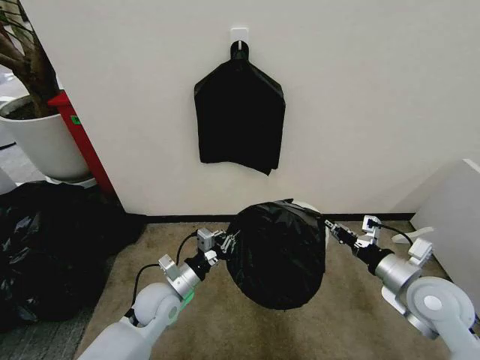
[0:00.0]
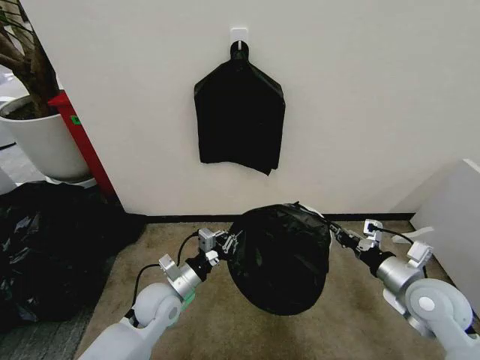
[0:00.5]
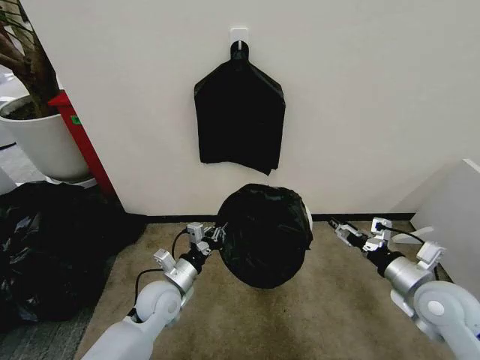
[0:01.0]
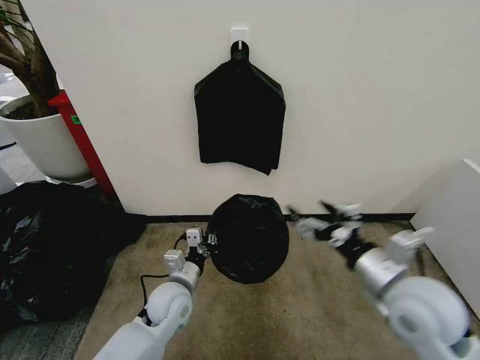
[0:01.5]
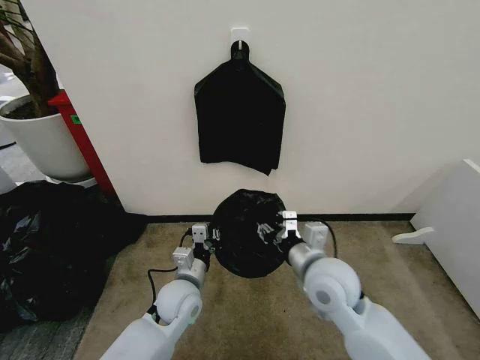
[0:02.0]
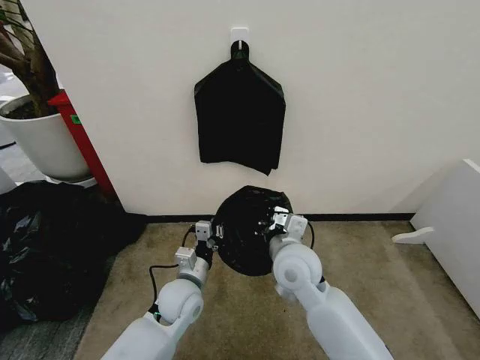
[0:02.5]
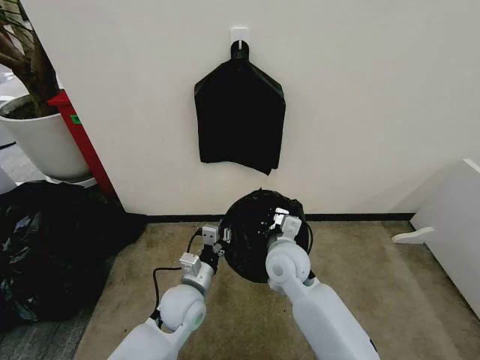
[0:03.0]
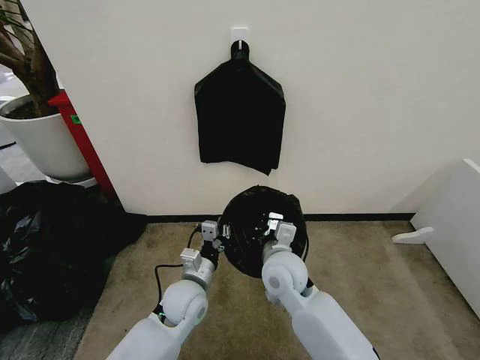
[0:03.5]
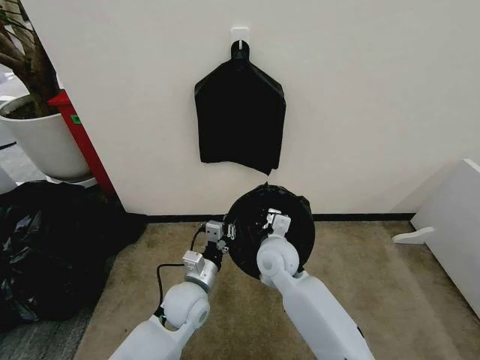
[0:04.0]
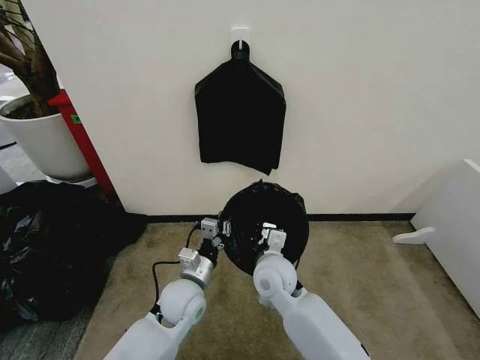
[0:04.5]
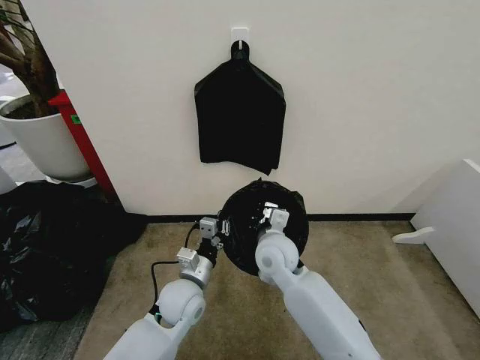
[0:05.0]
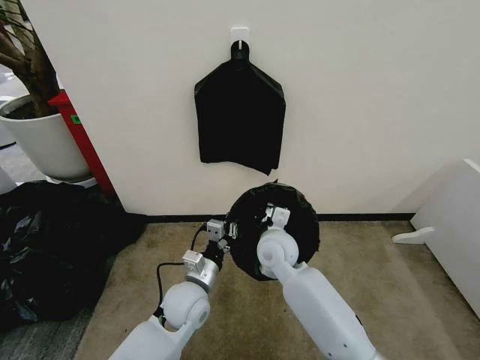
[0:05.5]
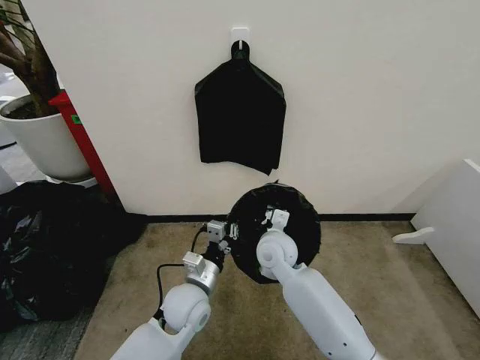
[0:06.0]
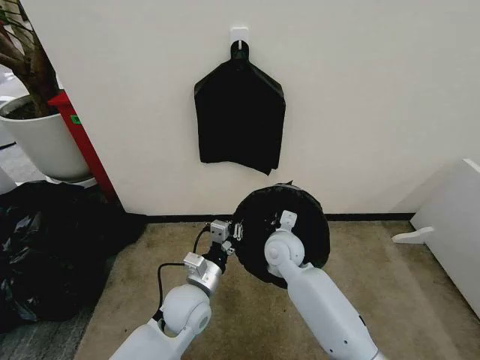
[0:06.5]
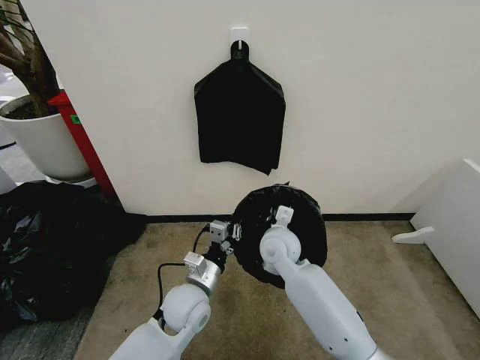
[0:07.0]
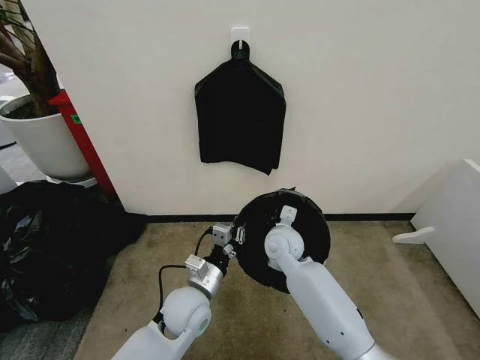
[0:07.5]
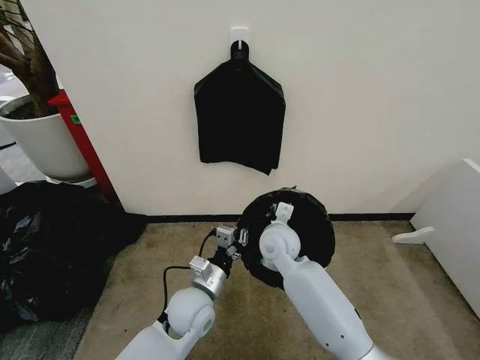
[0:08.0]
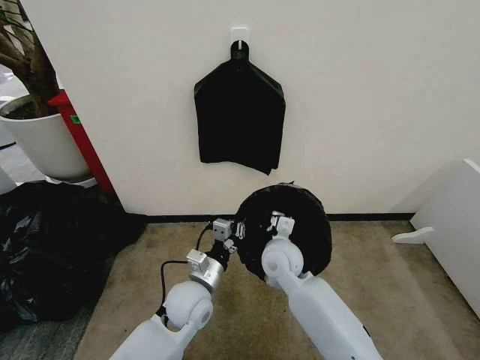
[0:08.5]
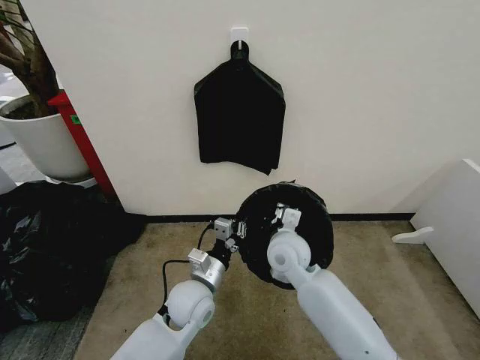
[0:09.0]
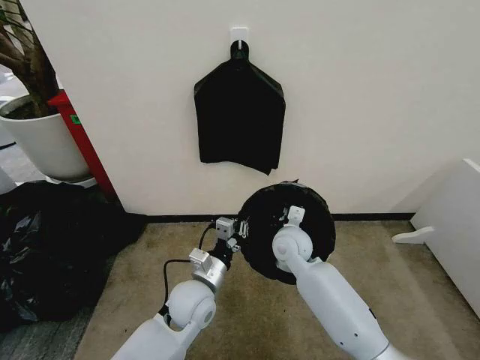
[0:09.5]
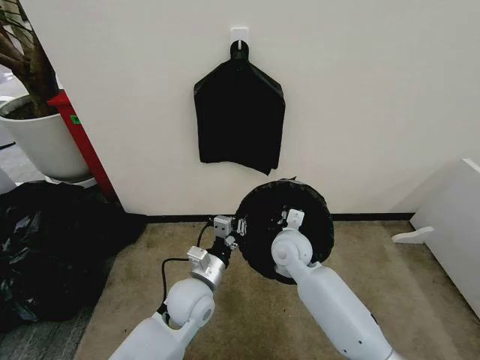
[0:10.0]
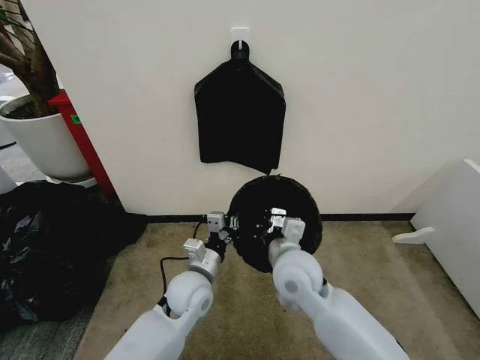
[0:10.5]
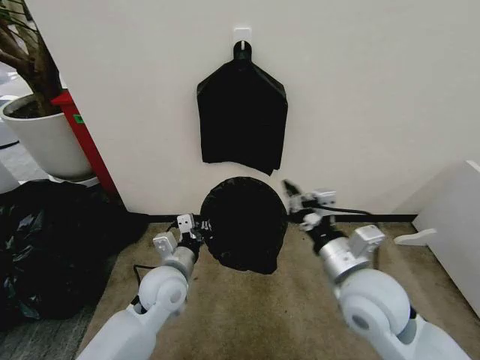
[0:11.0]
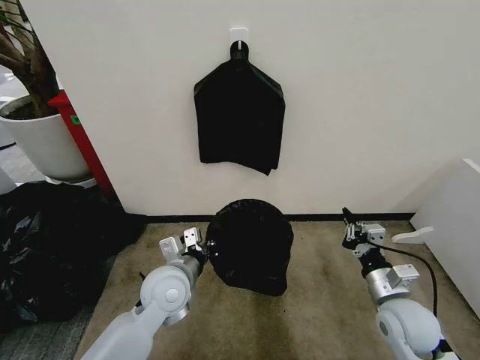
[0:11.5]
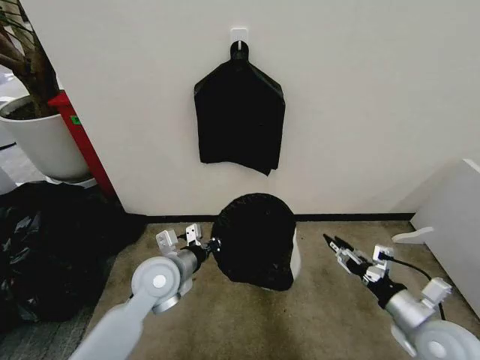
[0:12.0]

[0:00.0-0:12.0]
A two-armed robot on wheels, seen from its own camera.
Task of the whole recording: Place the garbage bag over the trash bin.
0:00.0 to 0:02.0: The right gripper goes about 20 cm to the left, and opens, then closes again, while the left gripper moves to the right, some 5 cm.
0:02.0 to 0:04.0: The right gripper shifts some 15 cm to the left, forward and downward, and closes its fingers.
0:04.0 to 0:06.0: The grippers stay close to where they were, moving slightly.
0:06.0 to 0:10.0: There are only small adjustments of the grippers.
0:10.0 to 0:12.0: The right gripper goes approximately 30 cm to the right and backward, and opens. The left gripper moves to the left and upward, about 10 cm.

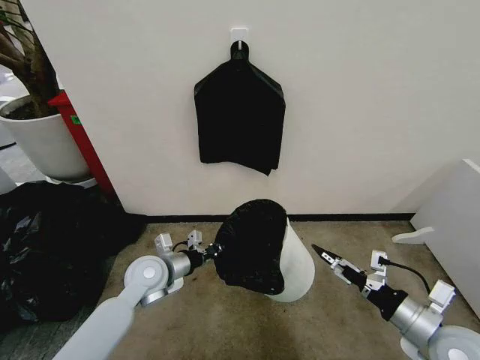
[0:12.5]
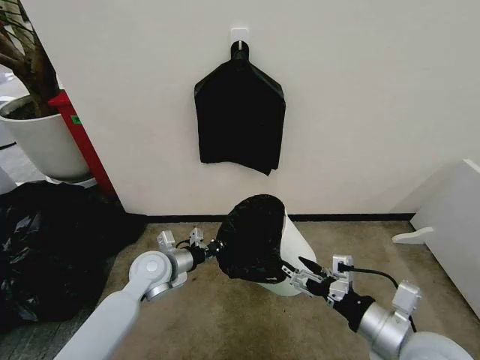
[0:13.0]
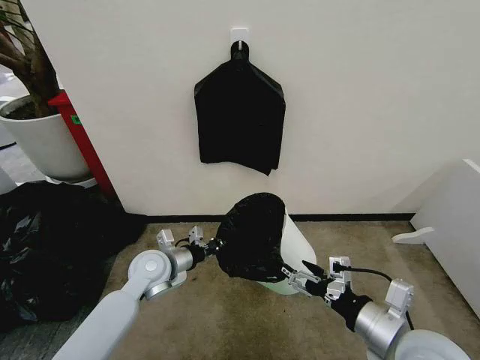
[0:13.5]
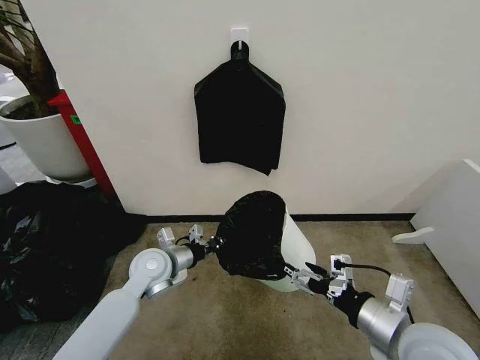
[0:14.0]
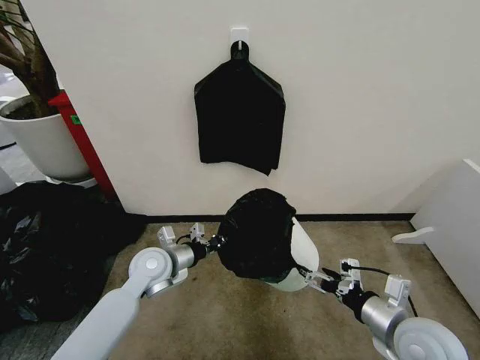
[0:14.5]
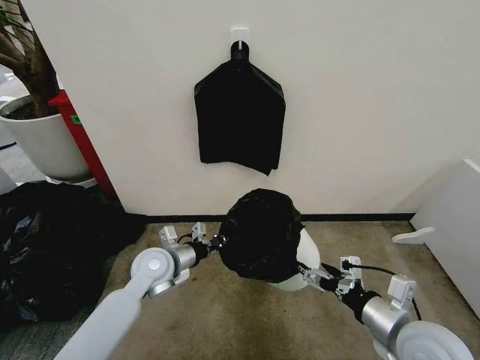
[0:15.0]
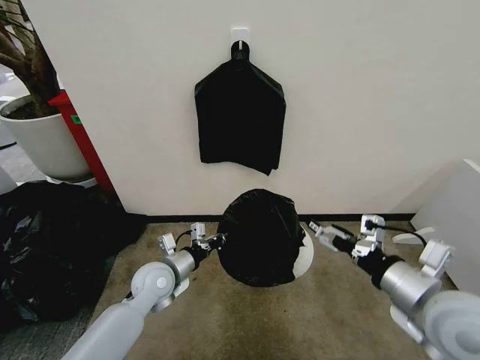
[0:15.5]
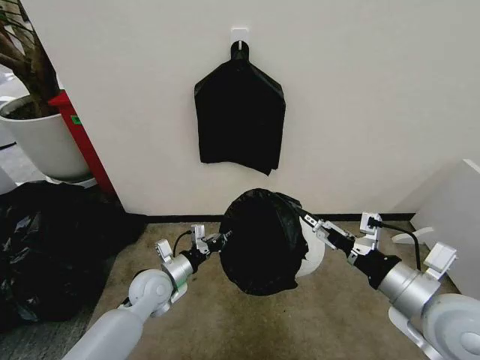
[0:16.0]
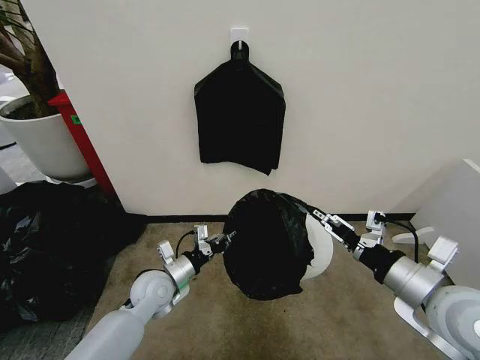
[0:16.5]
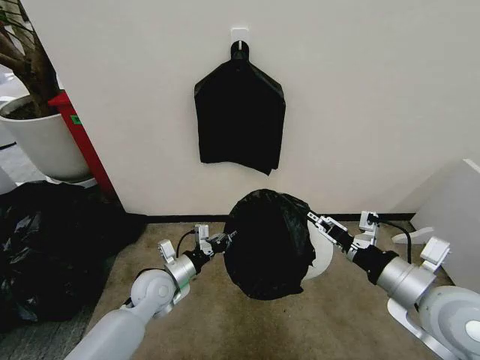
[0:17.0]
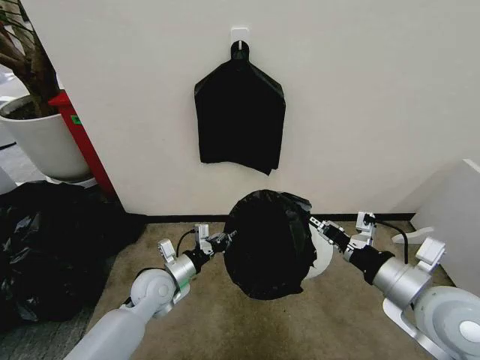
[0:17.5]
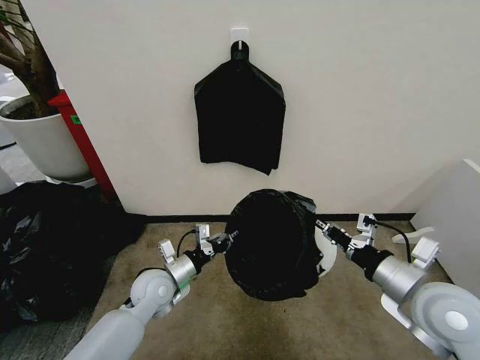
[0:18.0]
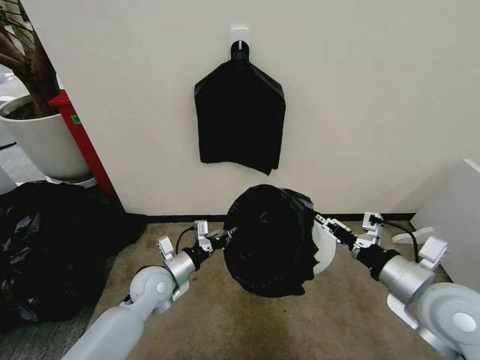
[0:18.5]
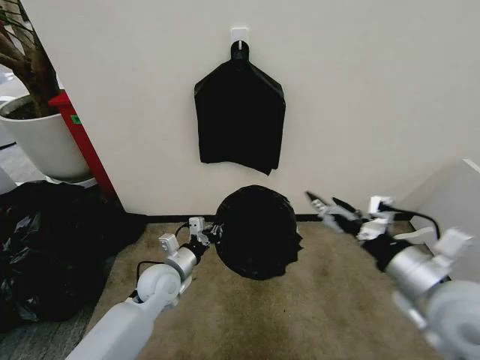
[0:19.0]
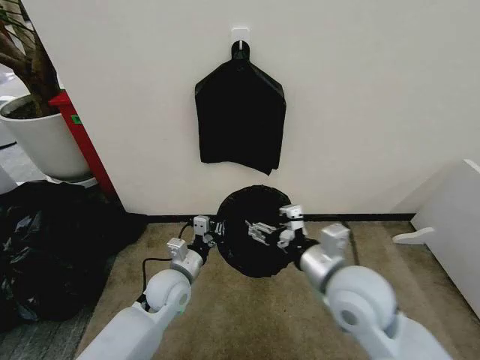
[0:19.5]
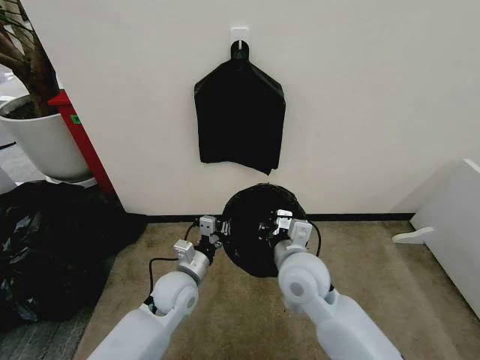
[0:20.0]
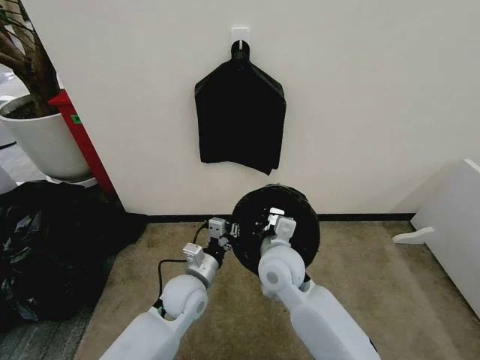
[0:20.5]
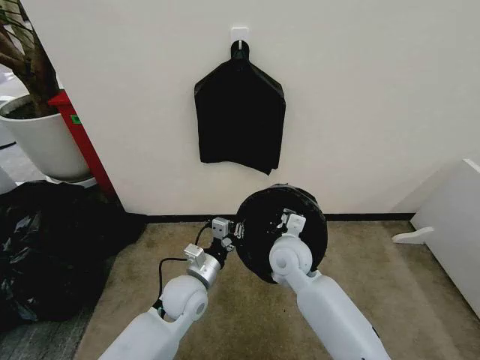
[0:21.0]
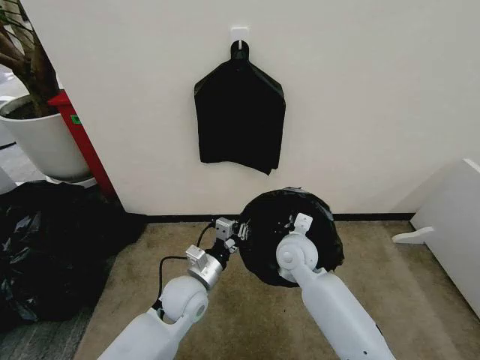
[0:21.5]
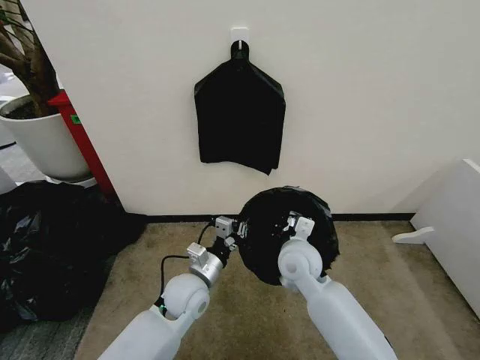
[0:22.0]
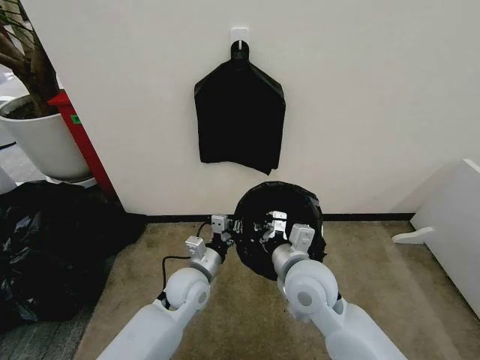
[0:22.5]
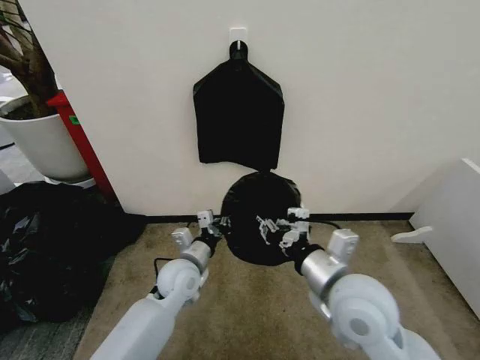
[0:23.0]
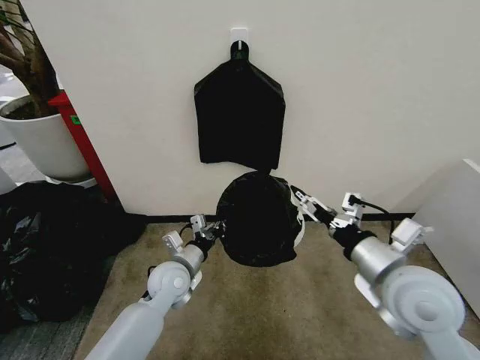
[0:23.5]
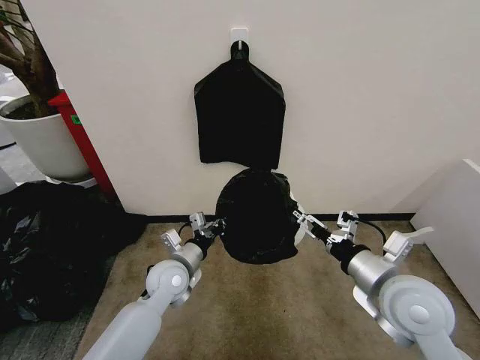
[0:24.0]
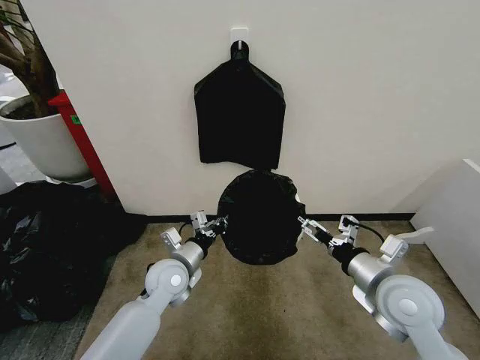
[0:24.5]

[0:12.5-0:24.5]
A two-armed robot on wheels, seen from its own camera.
Task of the whole recording: Place the garbage bag over the trash bin.
0:12.5 to 0:14.5: The right gripper goes approximately 5 cm to the left.
0:14.5 to 0:16.5: The left gripper shifts some 5 cm downward. The right gripper heads upward, covering roughly 10 cm.
0:16.5 to 0:18.5: The right gripper closes up.
0:18.5 to 0:20.5: The left gripper heads to the right, covering roughly 10 cm. Meanwhile the right gripper shifts approximately 25 cm to the left and forward, and closes.
0:20.5 to 0:22.5: The right gripper shifts by approximately 5 cm.
0:22.5 to 0:24.5: The right gripper shifts roughly 15 cm to the right, and opens its fingers; the left gripper moves some 5 cm.

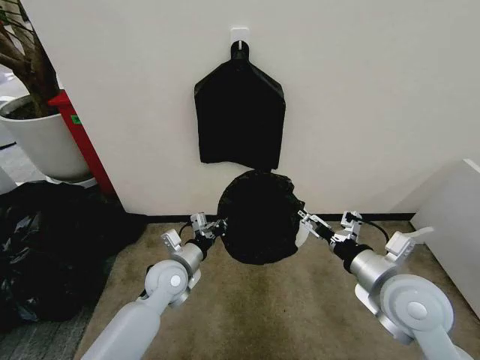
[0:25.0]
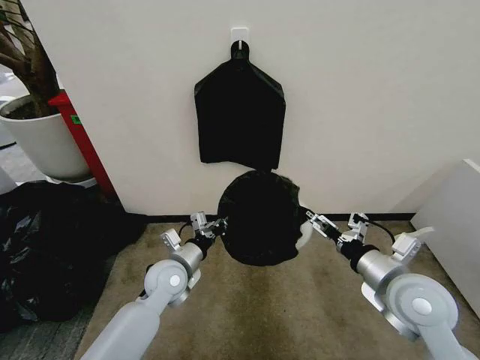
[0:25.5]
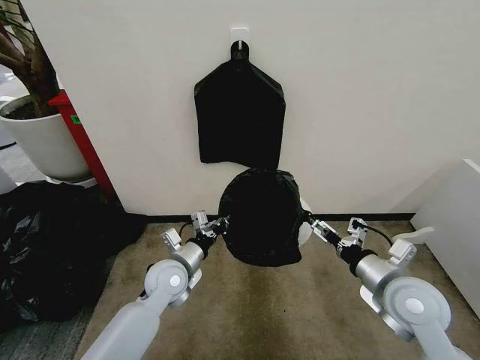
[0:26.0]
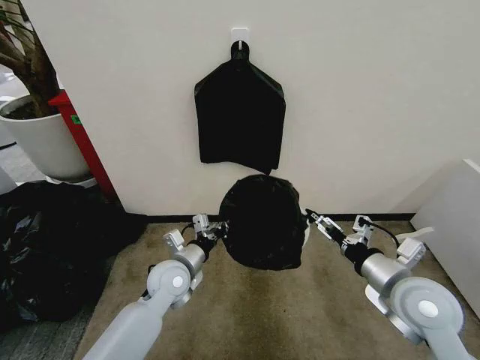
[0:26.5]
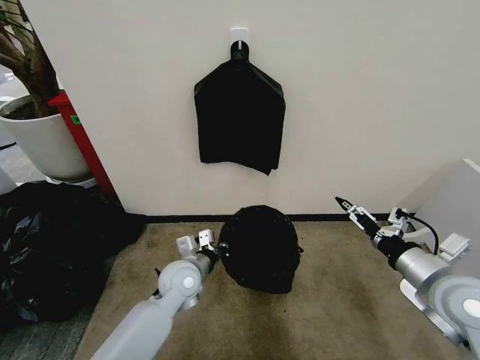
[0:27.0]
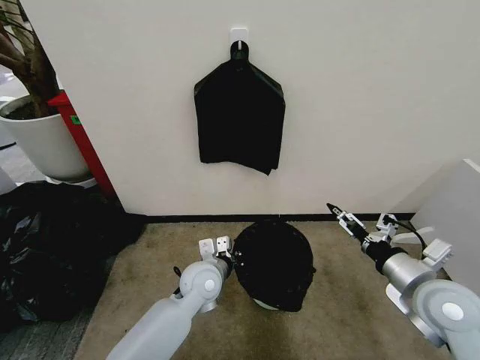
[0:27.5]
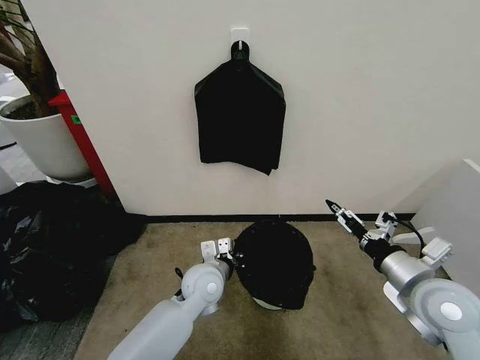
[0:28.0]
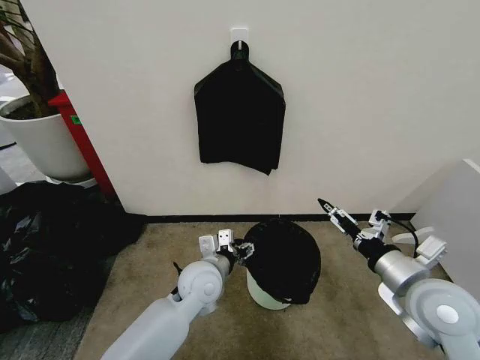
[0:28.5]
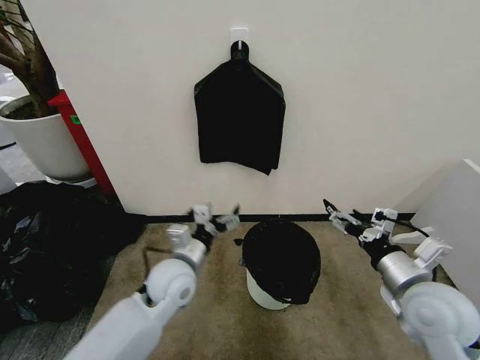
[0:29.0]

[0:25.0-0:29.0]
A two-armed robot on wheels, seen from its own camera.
Task of the whole recording: Place the garbage bag over the trash bin.
0:25.0 to 0:27.0: The right gripper is displaced to the right by approximately 10 cm.
0:27.0 to 0:29.0: The left gripper moves roughly 5 cm, and opens up.
